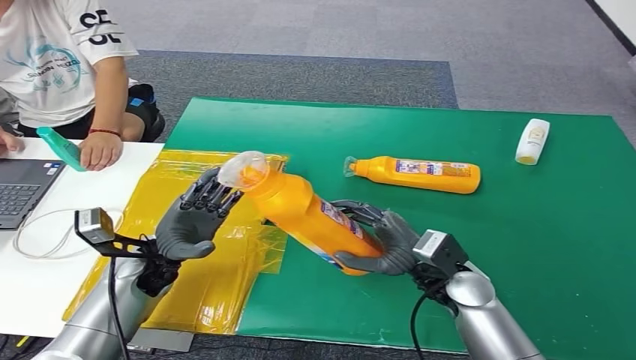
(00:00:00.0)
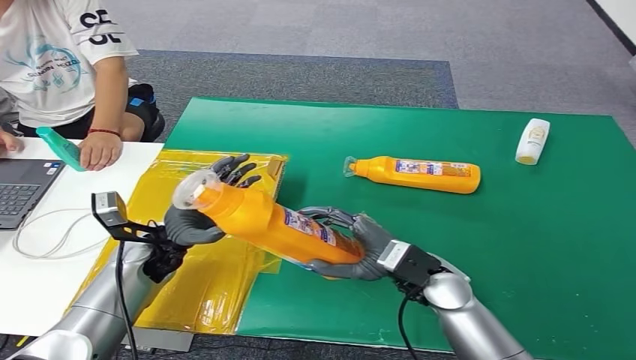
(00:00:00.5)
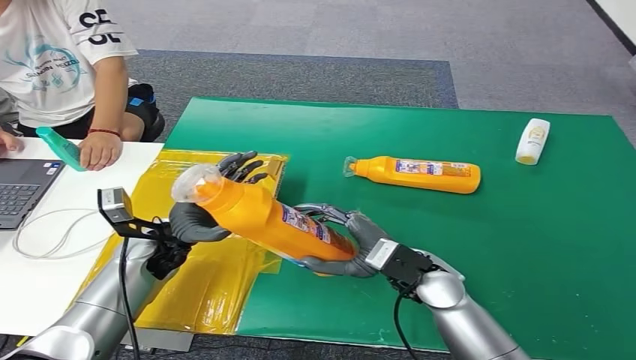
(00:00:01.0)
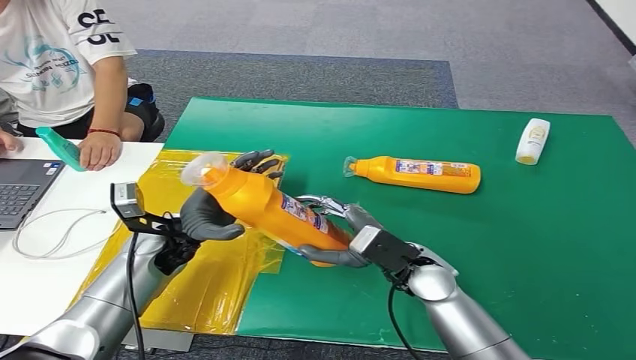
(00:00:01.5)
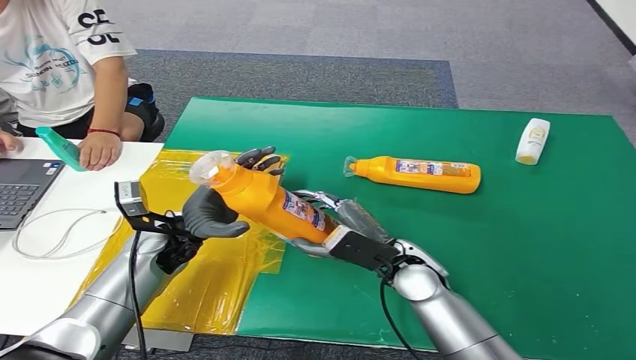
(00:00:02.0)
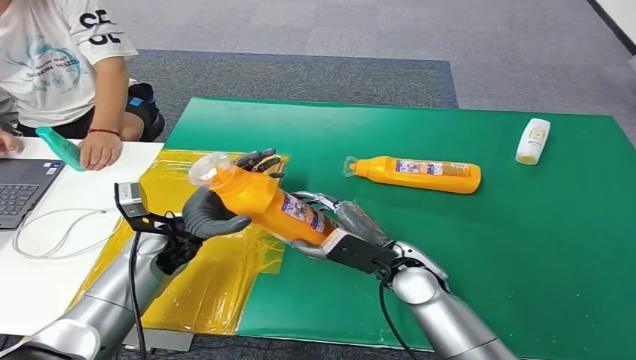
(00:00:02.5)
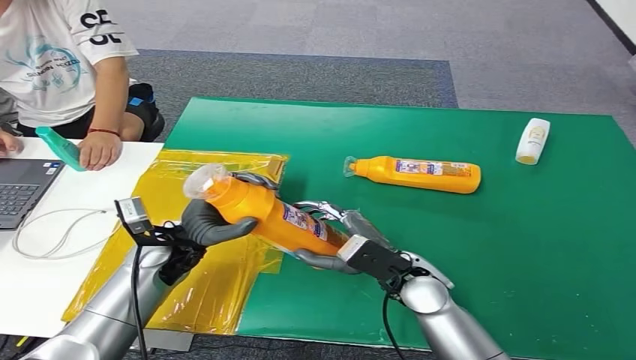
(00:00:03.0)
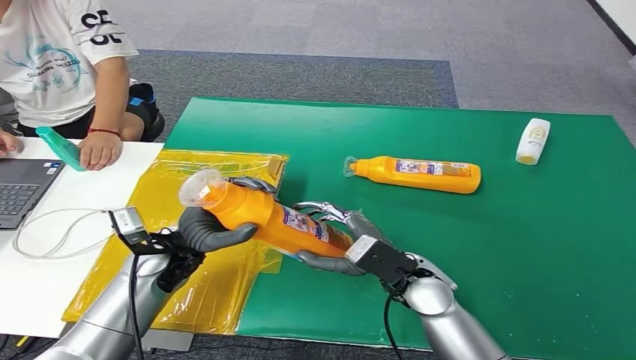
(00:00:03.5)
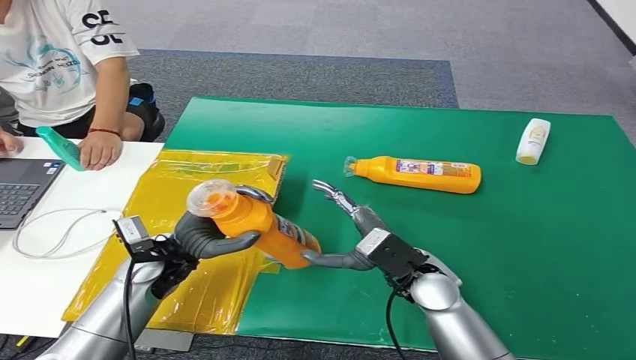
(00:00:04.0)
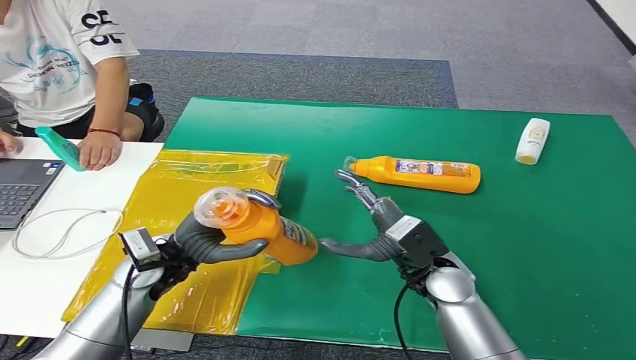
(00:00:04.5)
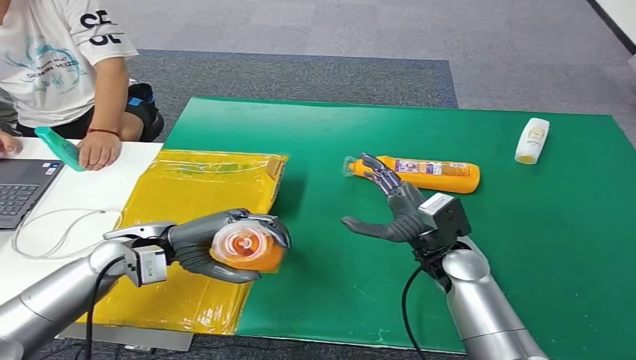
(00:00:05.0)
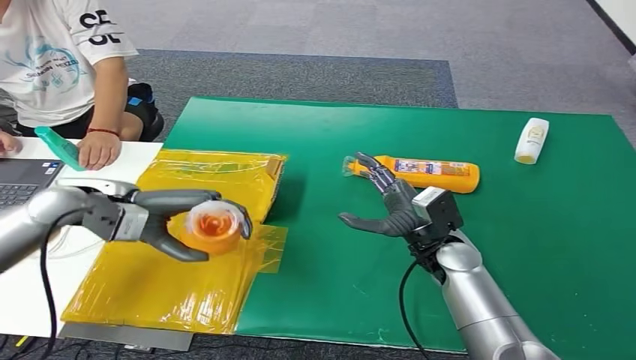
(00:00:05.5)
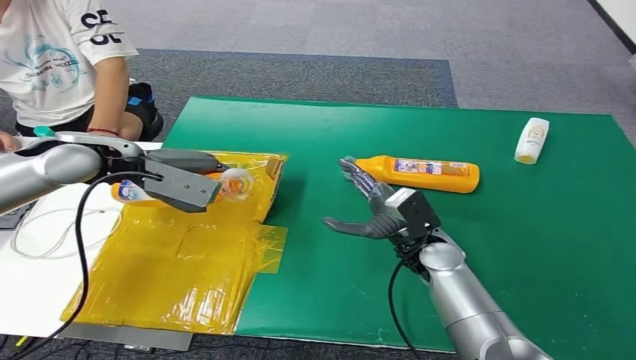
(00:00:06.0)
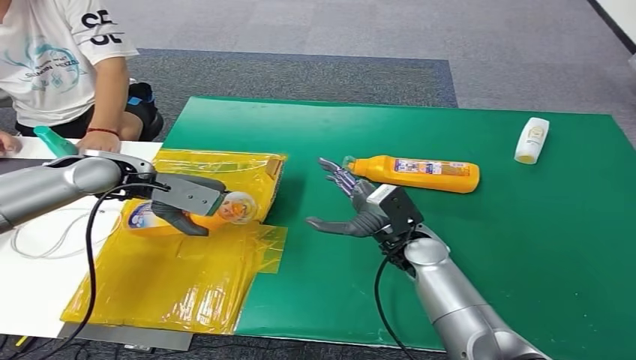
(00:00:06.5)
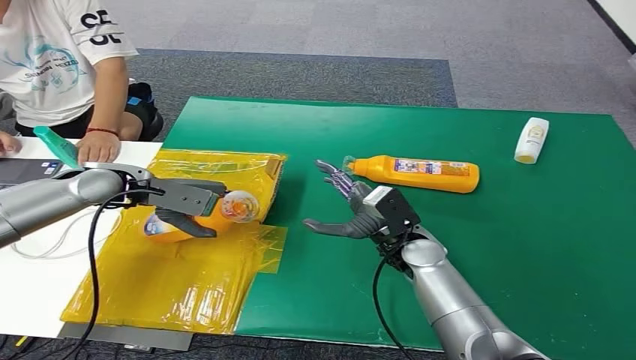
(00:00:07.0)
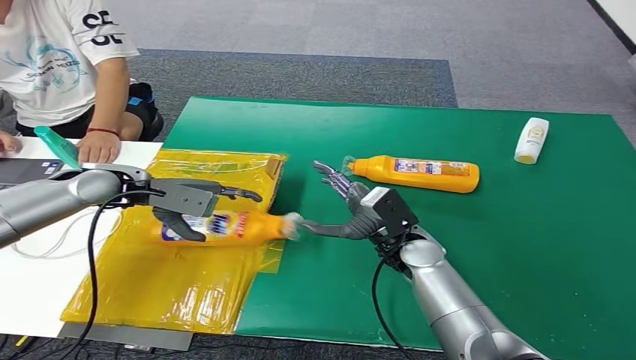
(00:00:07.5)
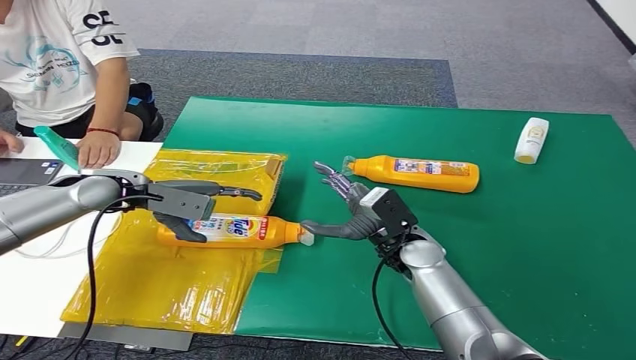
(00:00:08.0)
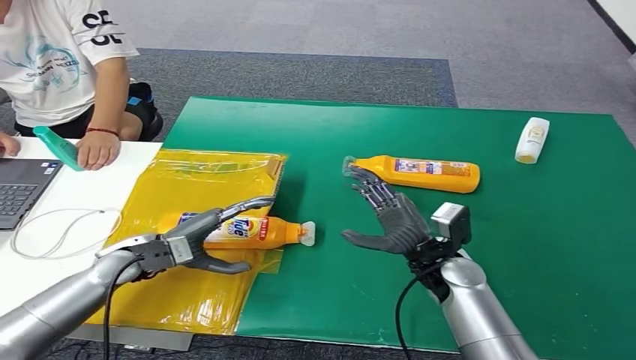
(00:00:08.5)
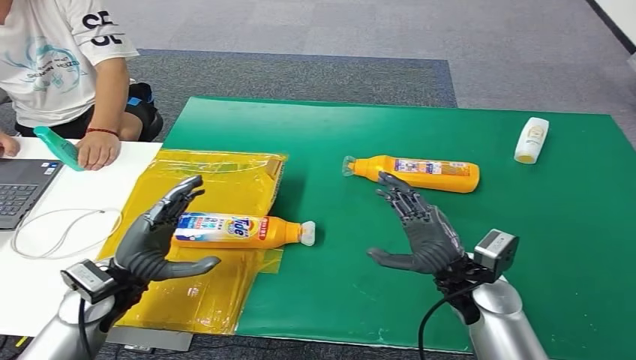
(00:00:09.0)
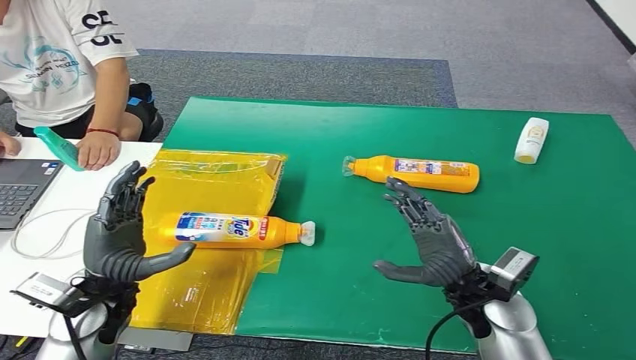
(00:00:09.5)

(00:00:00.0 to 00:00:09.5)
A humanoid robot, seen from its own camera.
Step, 00:00:00.0 - 00:00:09.5: Turn the bottle to the front side.
00:00:00.0 - 00:00:02.0: The left hand moves roughly 5 cm; the right hand travels to the left by some 5 cm.
00:00:02.0 - 00:00:04.0: The hands make only small movements.
00:00:05.5 - 00:00:07.5: The left hand goes some 5 cm forward, and goes upward and returns, about 5 cm each way.
